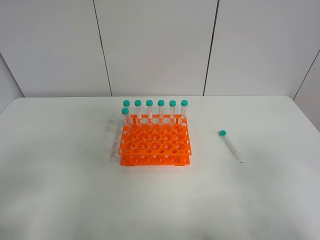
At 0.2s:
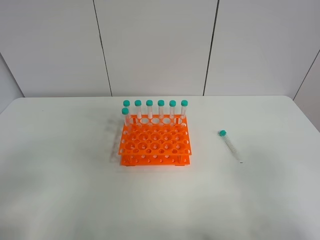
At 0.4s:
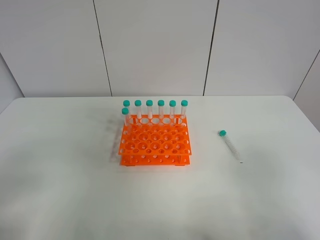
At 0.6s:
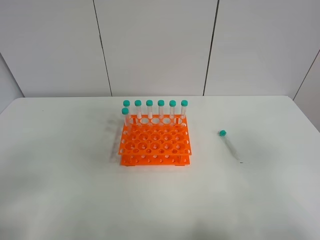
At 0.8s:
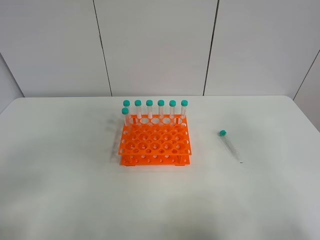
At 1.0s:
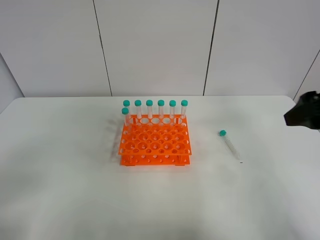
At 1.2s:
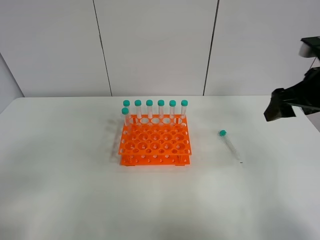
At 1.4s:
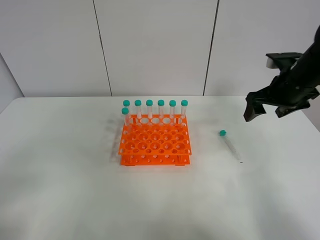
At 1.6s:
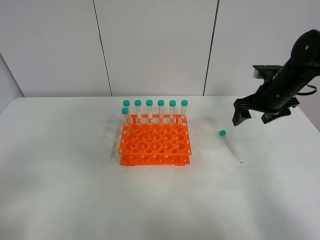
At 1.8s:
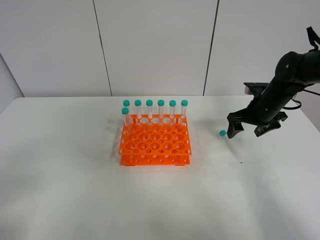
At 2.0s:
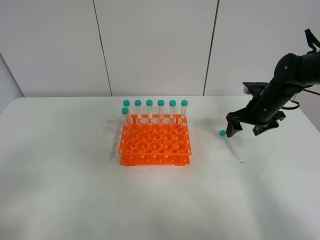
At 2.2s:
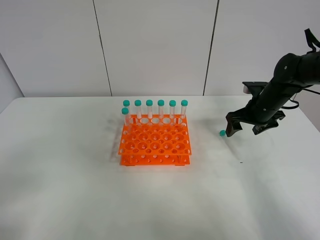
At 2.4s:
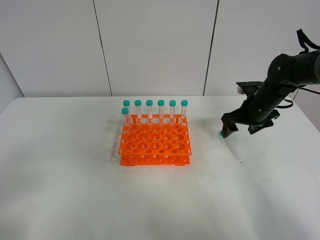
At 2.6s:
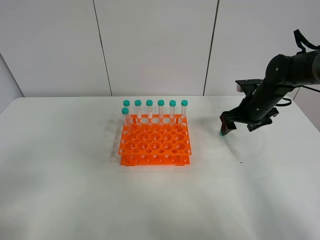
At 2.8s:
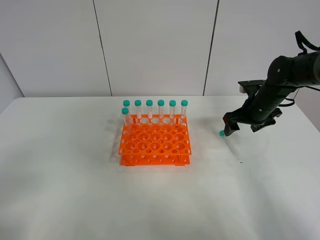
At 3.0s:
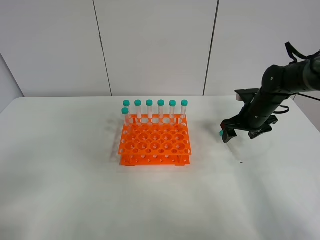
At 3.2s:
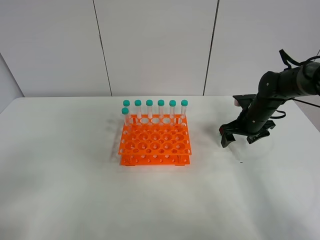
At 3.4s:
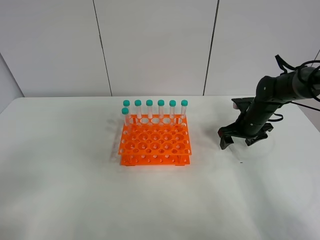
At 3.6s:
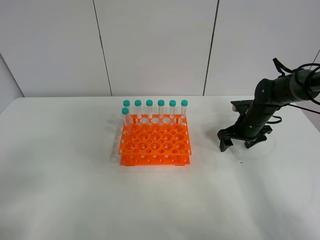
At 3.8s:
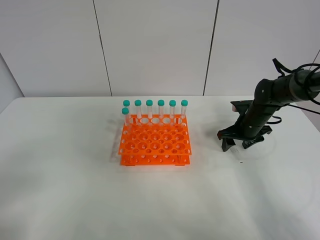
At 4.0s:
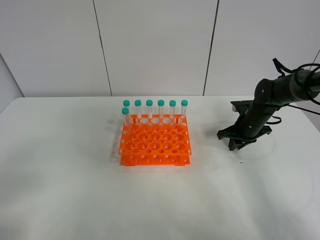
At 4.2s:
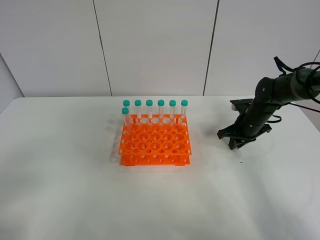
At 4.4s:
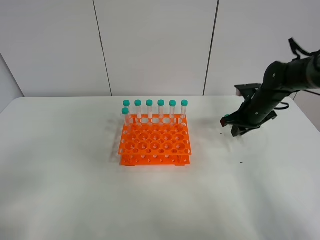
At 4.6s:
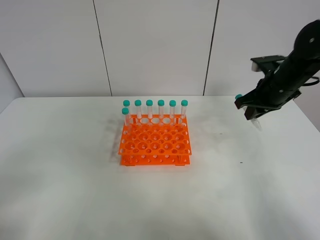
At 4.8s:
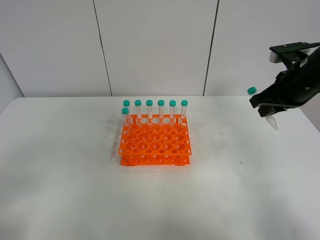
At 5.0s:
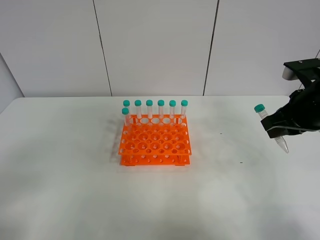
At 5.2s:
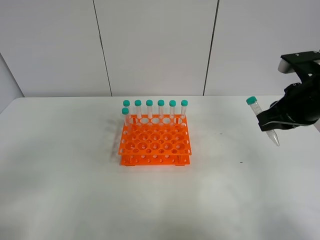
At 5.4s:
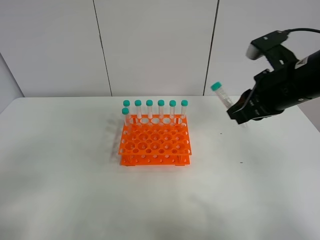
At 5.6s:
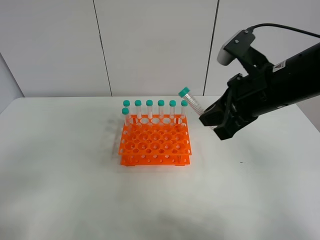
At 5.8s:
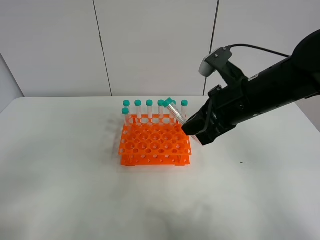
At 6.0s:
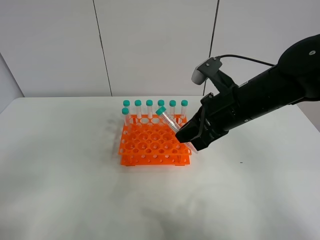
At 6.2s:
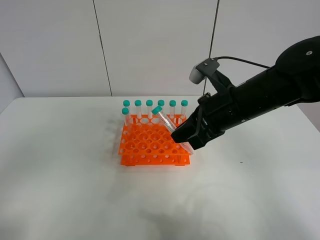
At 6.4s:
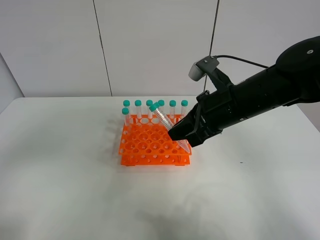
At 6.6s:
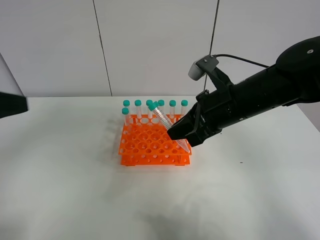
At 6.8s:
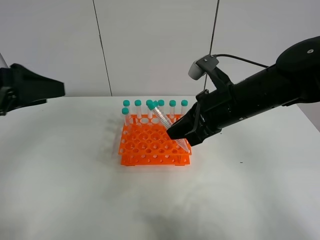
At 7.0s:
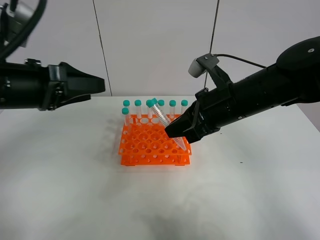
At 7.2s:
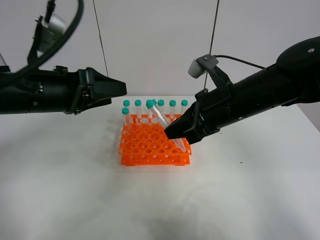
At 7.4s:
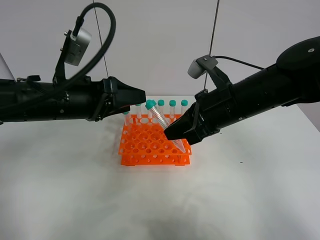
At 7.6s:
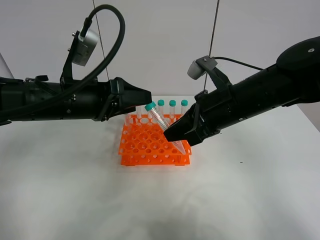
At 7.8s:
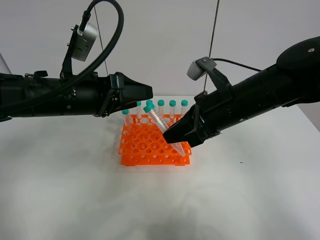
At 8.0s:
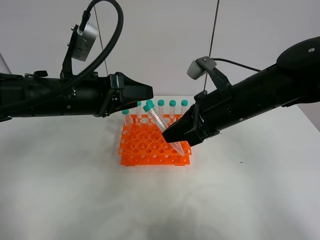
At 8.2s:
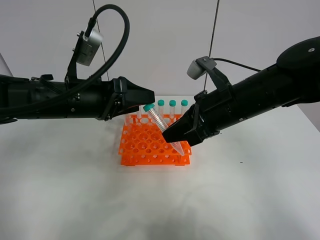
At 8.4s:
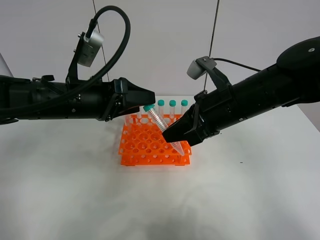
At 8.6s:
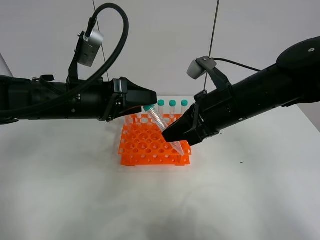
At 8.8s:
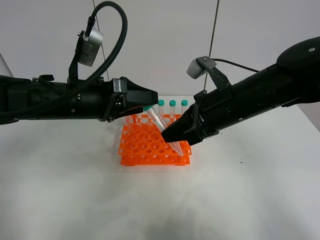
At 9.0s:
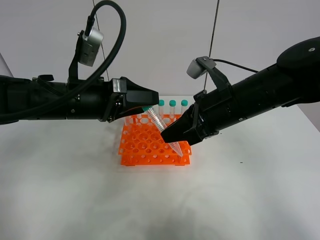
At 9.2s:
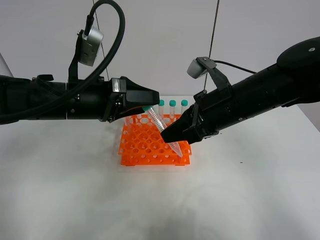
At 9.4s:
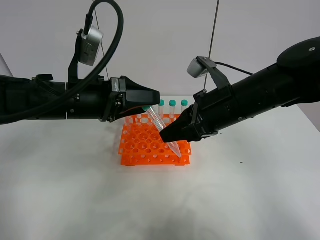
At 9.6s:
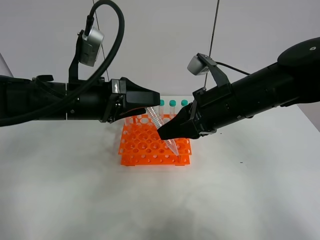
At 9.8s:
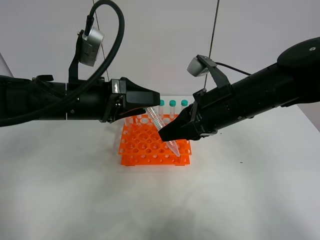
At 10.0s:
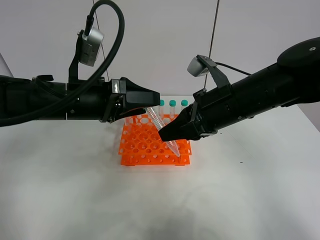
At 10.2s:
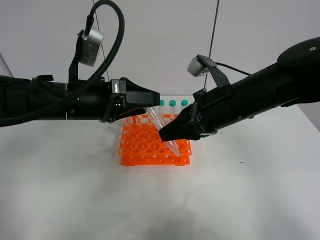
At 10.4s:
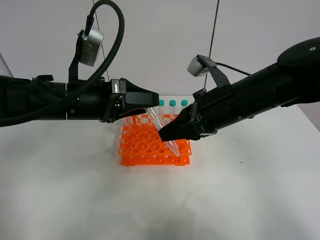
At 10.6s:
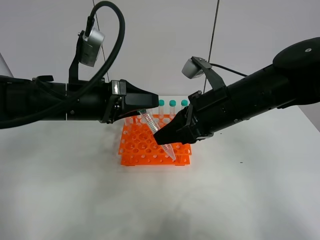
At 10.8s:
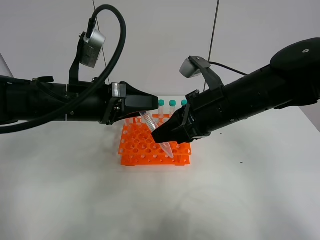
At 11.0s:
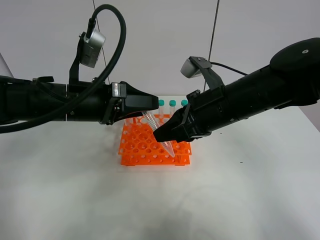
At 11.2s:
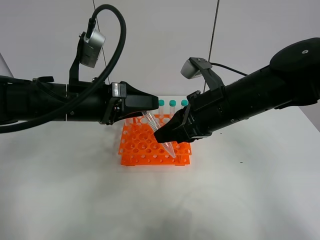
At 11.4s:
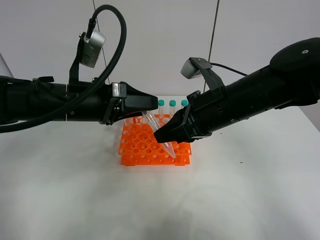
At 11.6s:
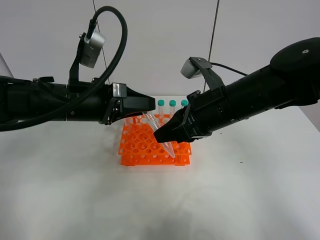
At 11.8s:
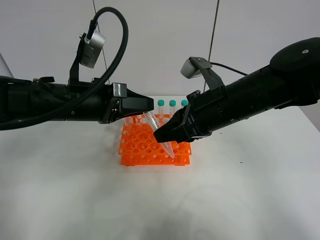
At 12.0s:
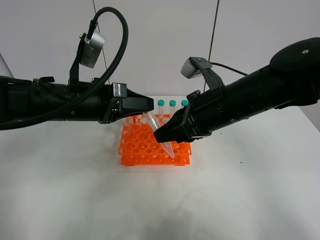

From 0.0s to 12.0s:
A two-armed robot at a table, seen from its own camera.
Task of the whole recording: Put the test tube on the table back onto the test tube rack.
Step, from 0.0s to 4.2s: Pick up the test tube with the right gripper.
Step, from 4.4s to 12.0s: Move the test tube from the right gripper to the left gripper.
From 0.0s to 1.6s: The right gripper moves forward, some 35 cm.
From 1.6s to 3.0s: The right gripper goes some 5 cm downward.
From 3.0s to 4.4s: The right gripper closes.
From 4.4s to 6.0s: The right gripper is displaced backward, to the left and upward by about 20 cm.
From 6.0s to 7.6s: The left gripper travels forward and to the right by approximately 30 cm.
From 7.6s to 10.4s: The grippers stay close to where they were, moving slightly.
From 10.4s to 12.0s: The left gripper closes up.

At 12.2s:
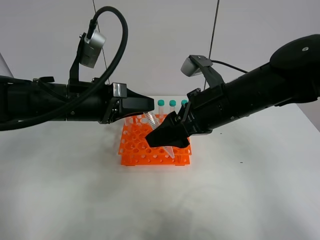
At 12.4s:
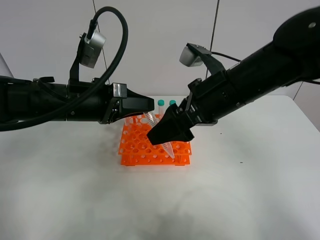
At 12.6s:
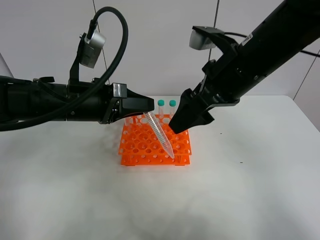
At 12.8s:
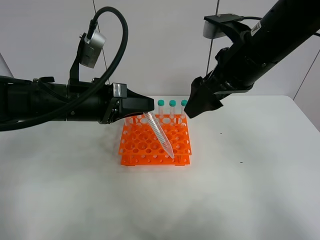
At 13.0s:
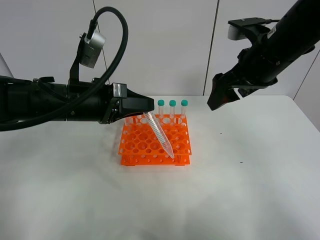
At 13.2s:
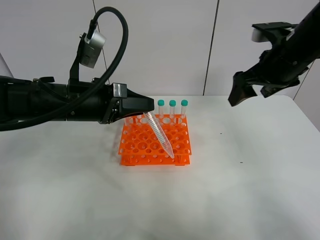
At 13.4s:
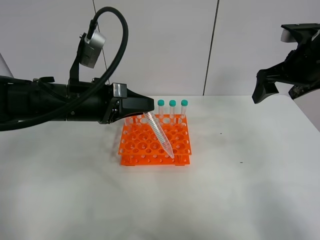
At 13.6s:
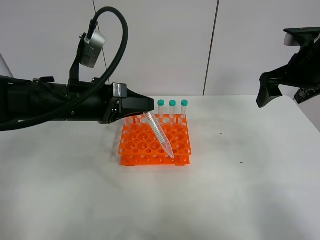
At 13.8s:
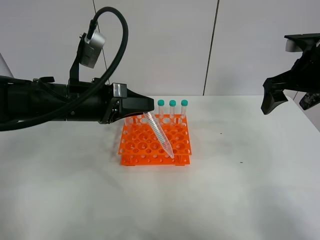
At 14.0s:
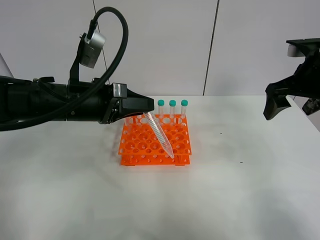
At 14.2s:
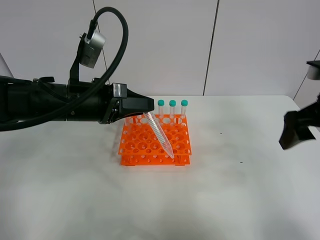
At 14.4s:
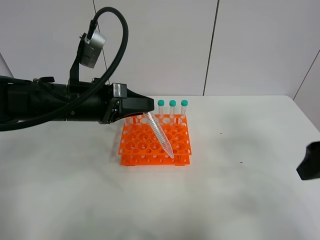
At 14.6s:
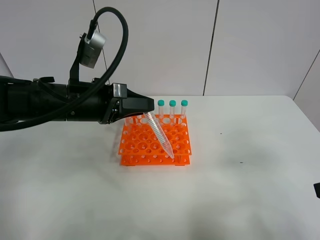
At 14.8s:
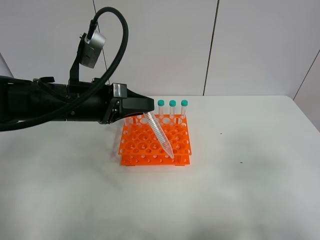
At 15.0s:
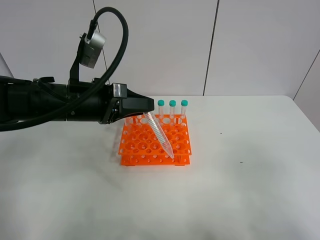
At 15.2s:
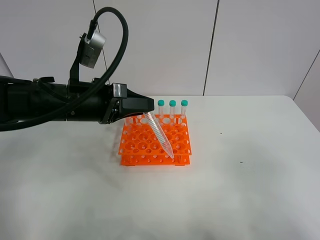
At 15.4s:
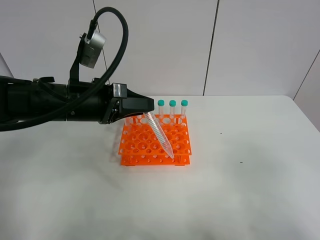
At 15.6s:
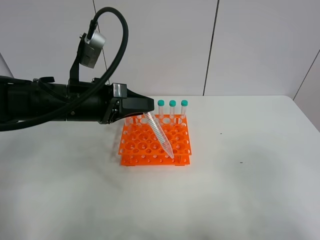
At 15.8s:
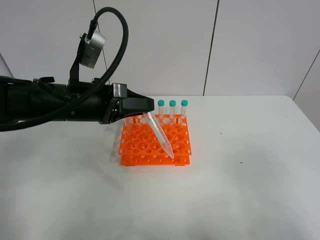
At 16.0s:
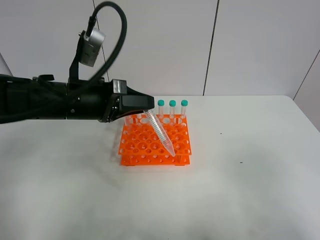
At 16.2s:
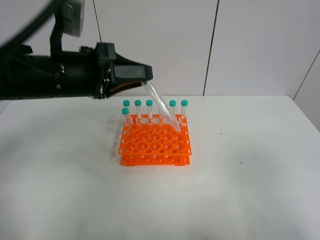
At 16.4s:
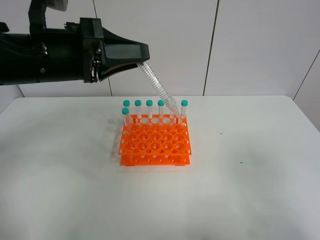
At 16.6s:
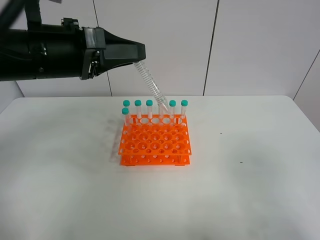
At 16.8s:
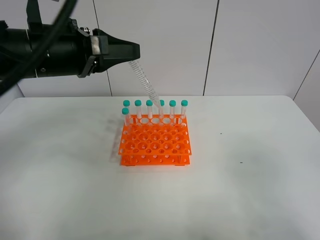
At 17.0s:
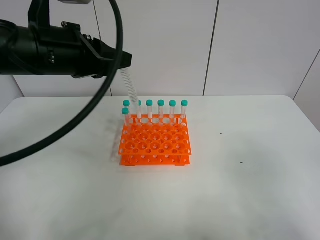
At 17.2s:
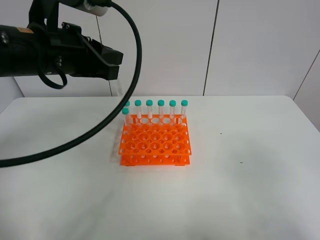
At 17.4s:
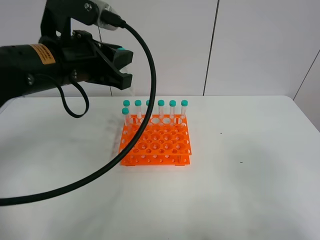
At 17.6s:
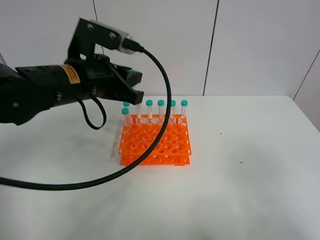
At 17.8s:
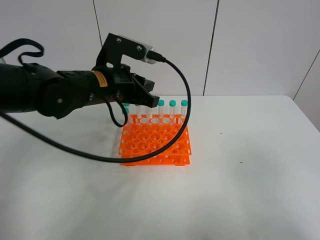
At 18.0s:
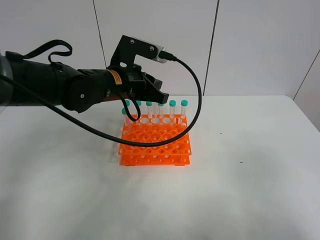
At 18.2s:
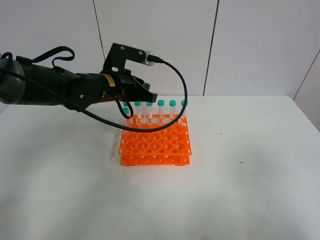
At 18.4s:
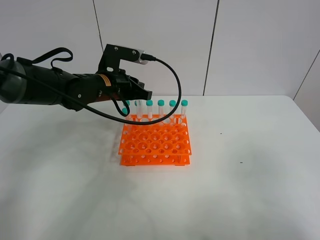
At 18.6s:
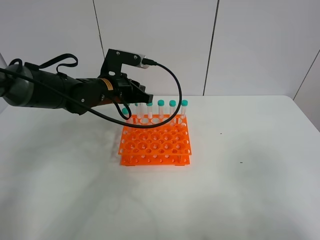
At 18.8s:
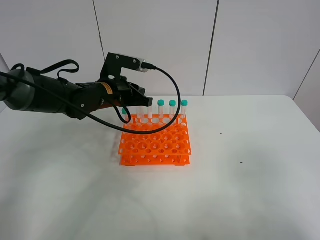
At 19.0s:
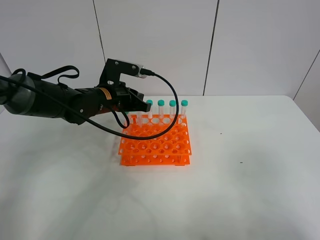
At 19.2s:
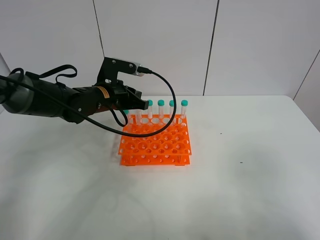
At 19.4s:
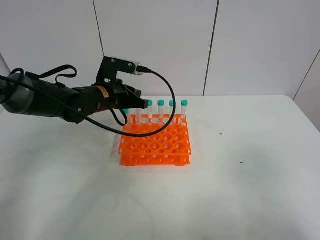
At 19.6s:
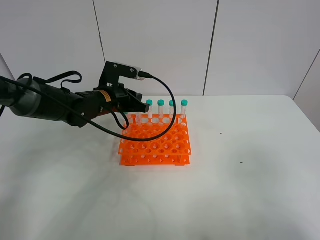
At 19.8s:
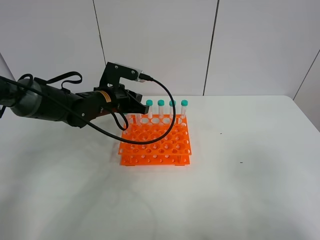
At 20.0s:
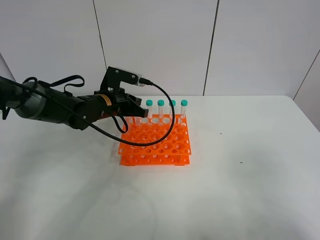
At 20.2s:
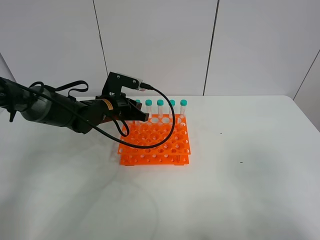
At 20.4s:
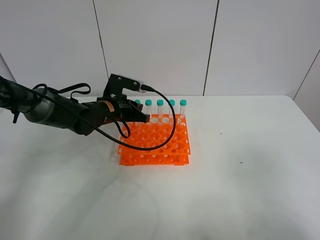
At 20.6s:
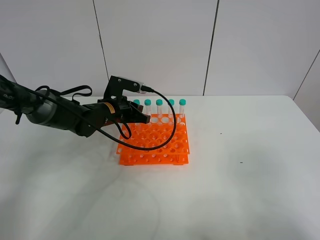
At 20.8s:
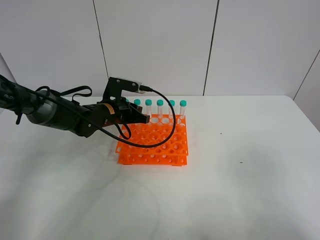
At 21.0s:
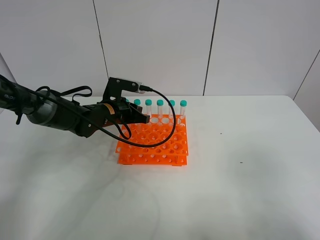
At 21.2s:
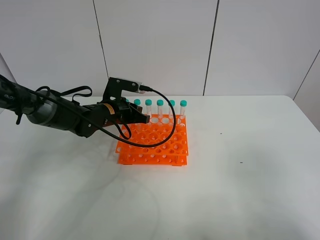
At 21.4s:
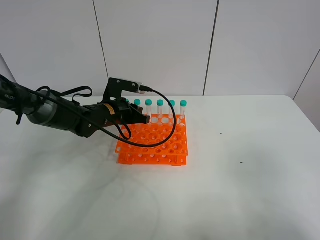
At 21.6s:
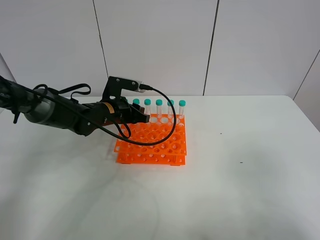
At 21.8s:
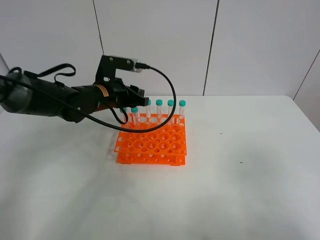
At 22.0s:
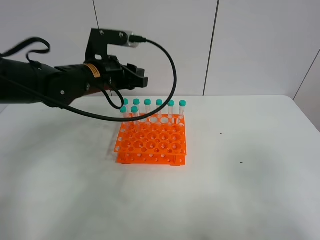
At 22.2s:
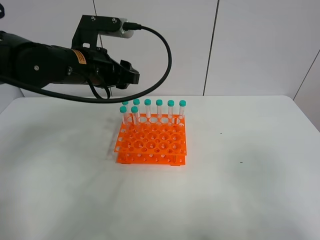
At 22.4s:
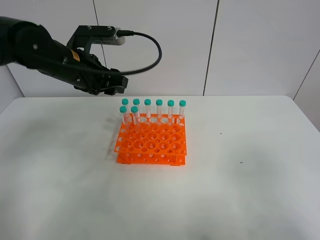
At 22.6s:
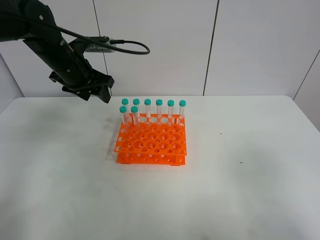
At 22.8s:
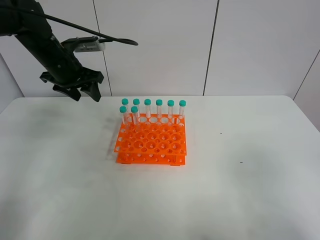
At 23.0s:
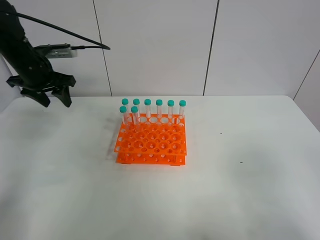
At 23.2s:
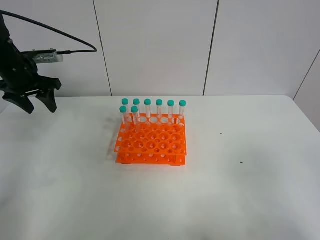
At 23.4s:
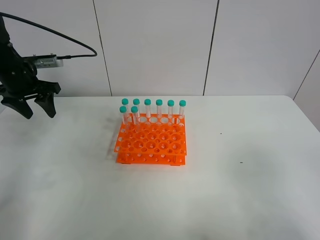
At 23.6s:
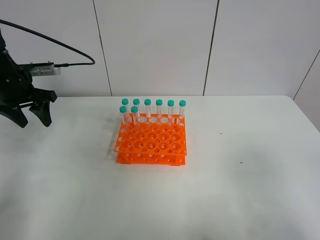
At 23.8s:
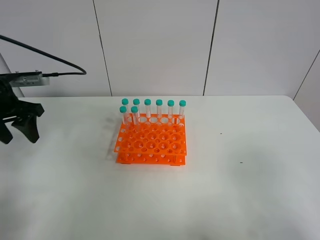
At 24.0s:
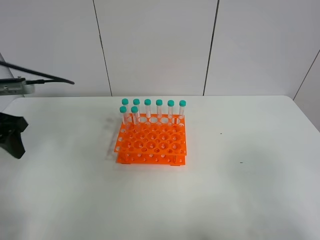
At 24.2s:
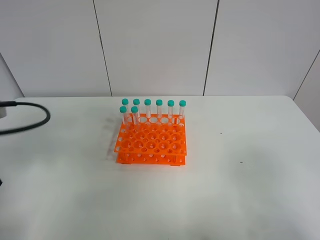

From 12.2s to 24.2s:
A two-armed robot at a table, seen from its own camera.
Task of the whole recording: Put the test tube on the table back onto the test tube rack.
Step, from 12.2s to 21.6s: Place the test tube on the test tube rack with the left gripper.
From 12.2s to 13.8s: The right gripper goes some 15 cm to the right.
From 13.8s to 15.2s: The right gripper shifts some 30 cm backward.
From 15.2s to 16.6s: The left gripper moves upward, roughly 10 cm.
From 16.6s to 18.2s: The left gripper heads forward and downward, covering approximately 15 cm.
From 18.2s to 19.8s: The left gripper changes place by about 5 cm.
From 19.8s to 21.2s: The grippers move only a little.
From 21.2s to 22.6s: The left gripper goes approximately 15 cm upward and to the left, and opens.
From 22.6s to 24.2s: The left gripper heads backward and to the left, covering roughly 25 cm.
